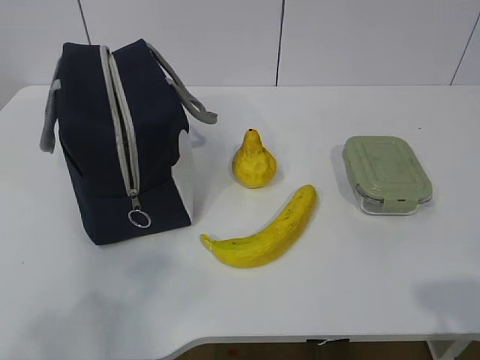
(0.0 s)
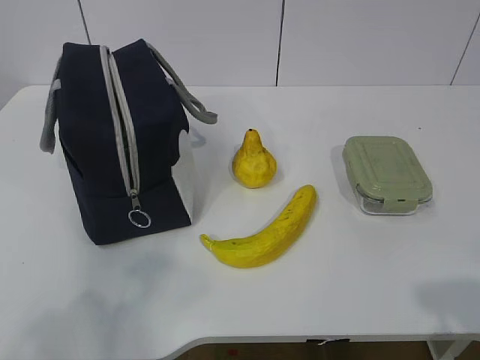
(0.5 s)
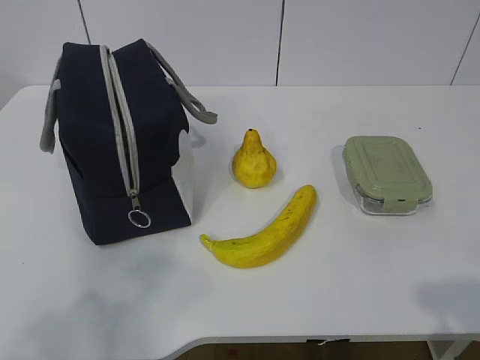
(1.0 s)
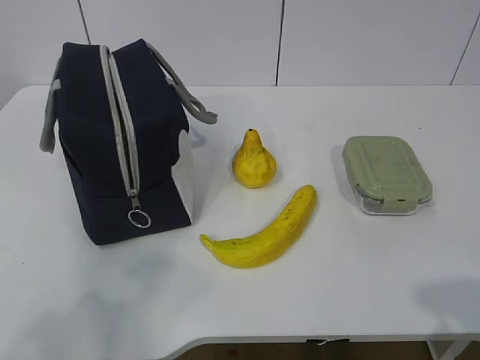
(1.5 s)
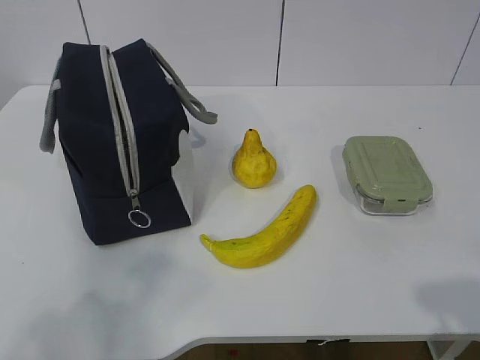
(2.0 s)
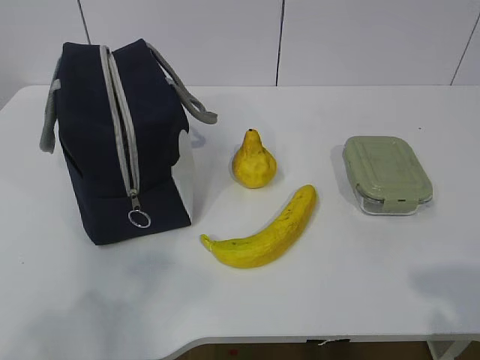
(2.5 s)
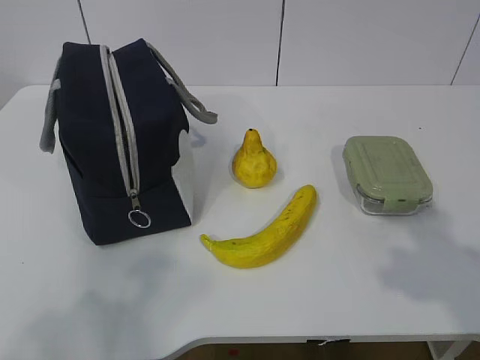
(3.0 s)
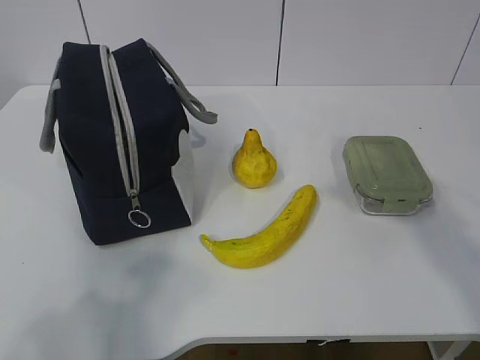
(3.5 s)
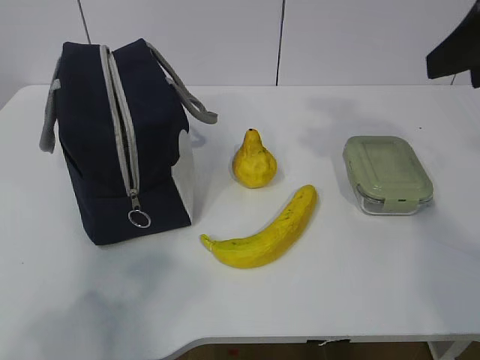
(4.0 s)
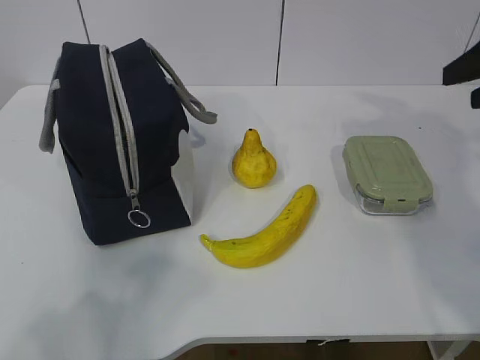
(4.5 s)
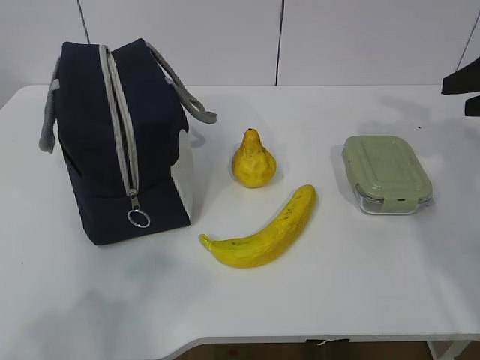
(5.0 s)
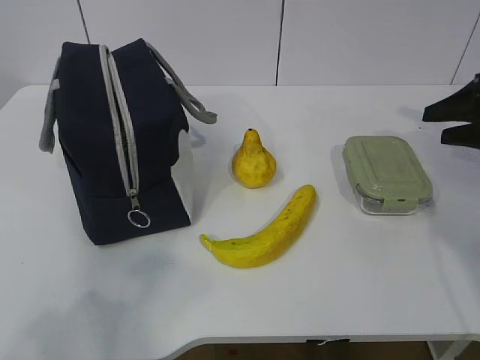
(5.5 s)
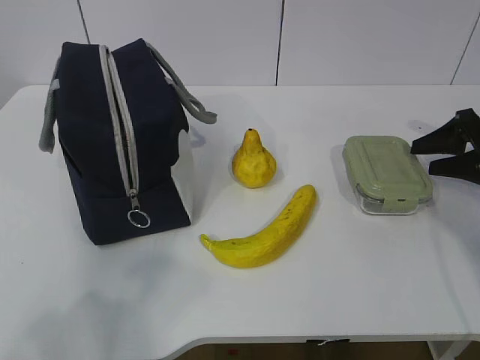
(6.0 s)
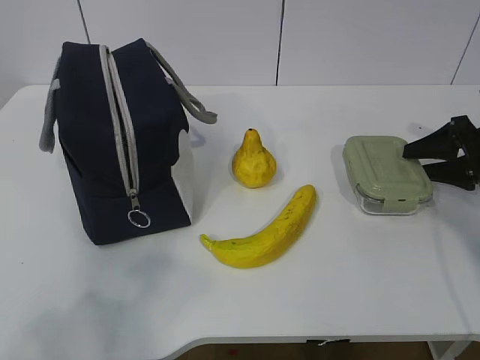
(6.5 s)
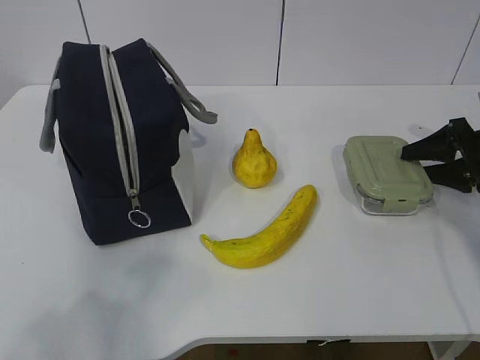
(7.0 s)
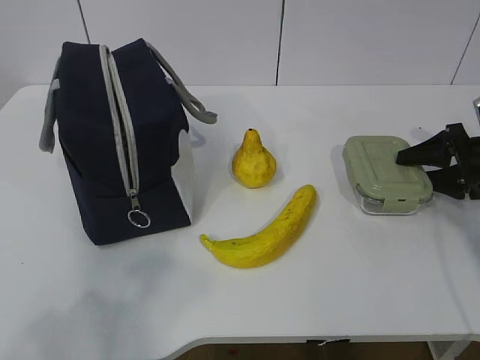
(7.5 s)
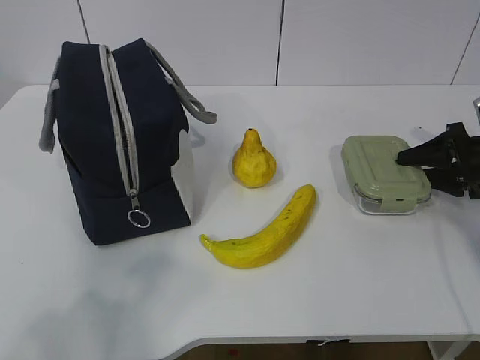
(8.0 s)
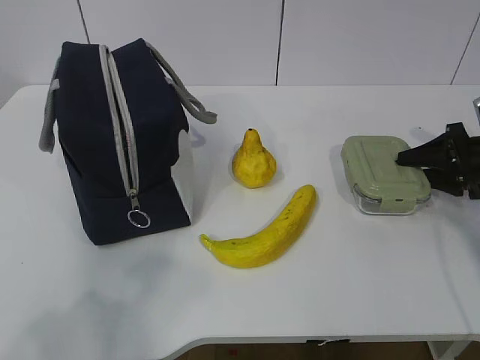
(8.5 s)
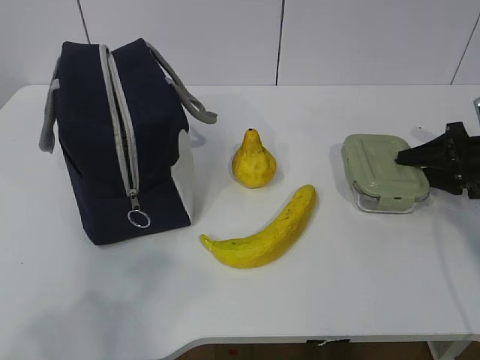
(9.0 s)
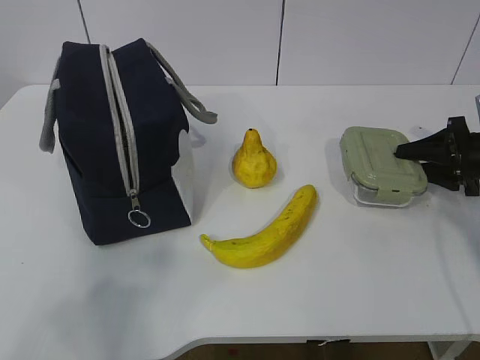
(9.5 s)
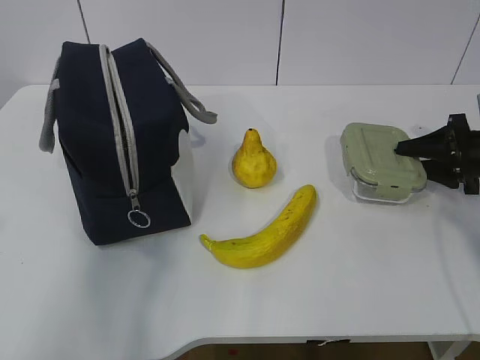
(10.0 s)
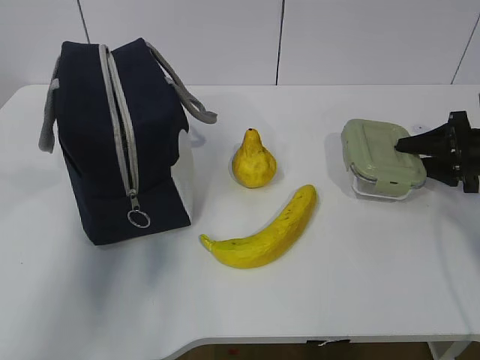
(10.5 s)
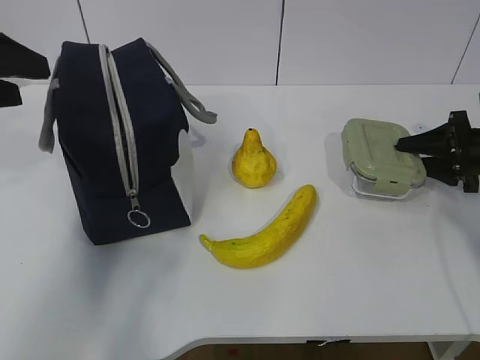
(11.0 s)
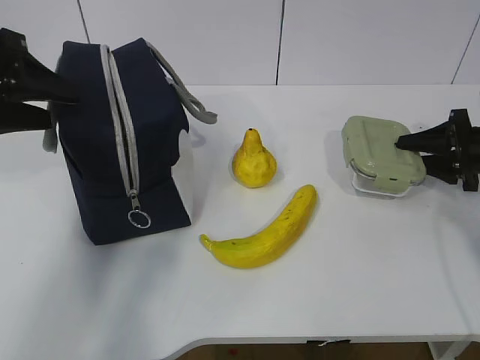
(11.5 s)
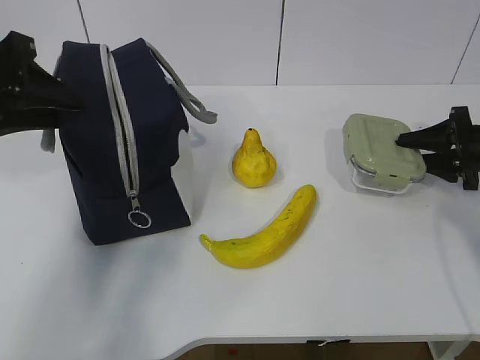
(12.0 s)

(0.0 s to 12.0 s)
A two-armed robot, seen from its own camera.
Step, 0.0 s - 8.0 s: Grasp the box with the right gripper.
2.0 s - 4.0 s: The right gripper moves forward, roughly 25 cm.
4.0 s - 6.0 s: The right gripper moves downward, to the right and forward, roughly 30 cm.
6.0 s - 8.0 s: The grippers make only small movements.
10.0 s - 12.0 s: The left gripper travels forward by about 25 cm.

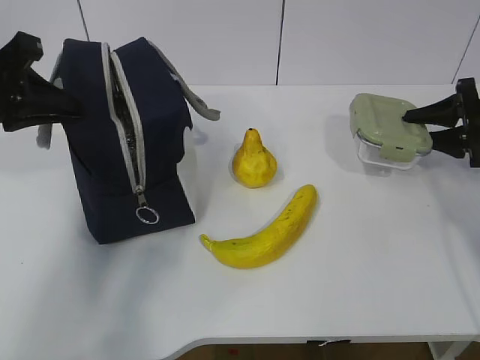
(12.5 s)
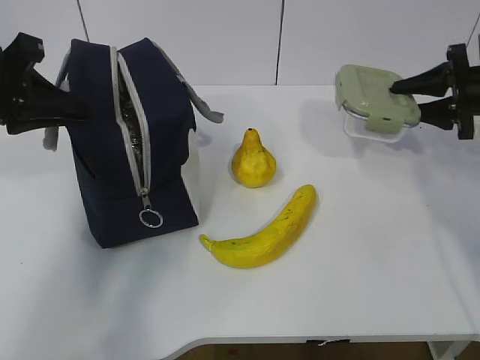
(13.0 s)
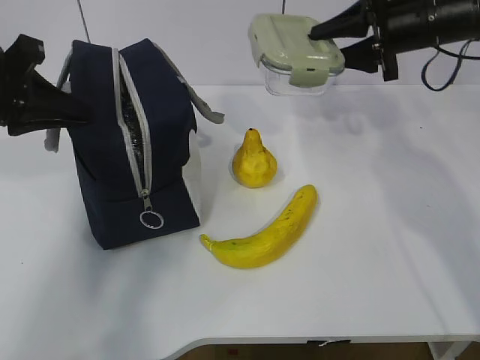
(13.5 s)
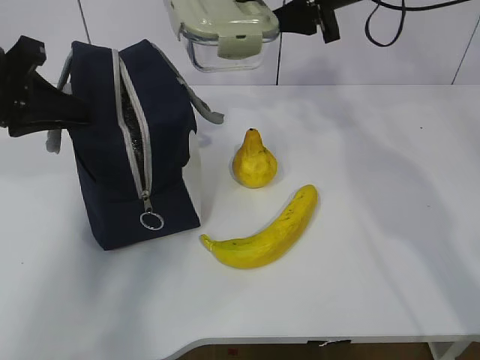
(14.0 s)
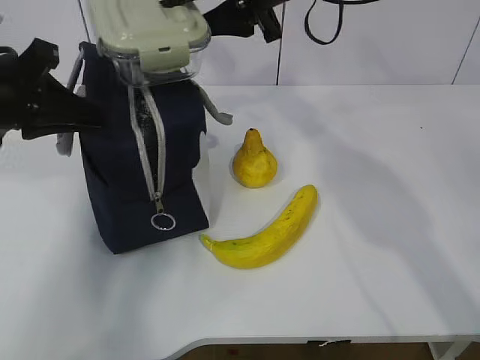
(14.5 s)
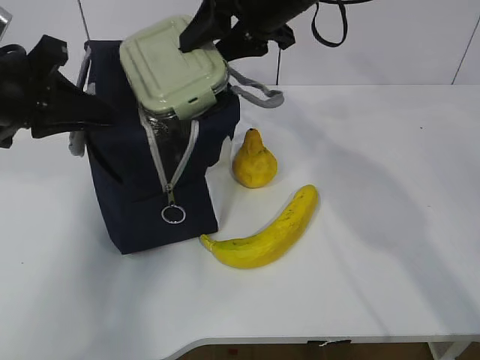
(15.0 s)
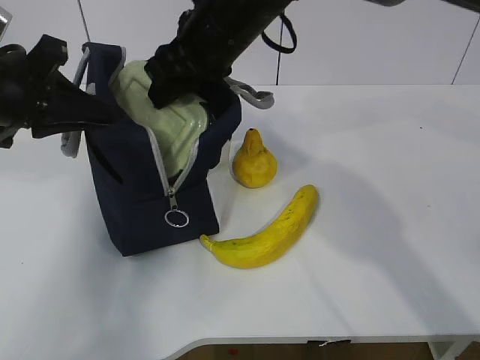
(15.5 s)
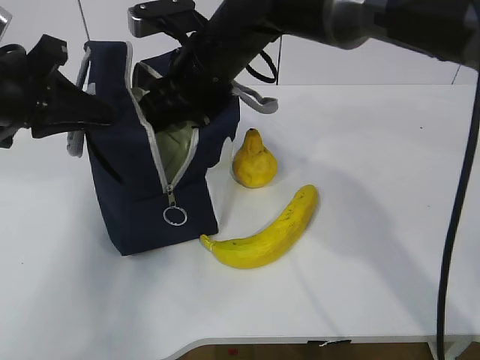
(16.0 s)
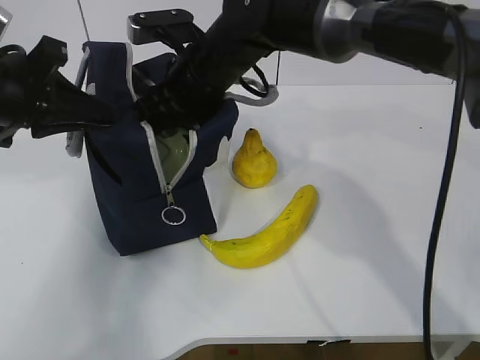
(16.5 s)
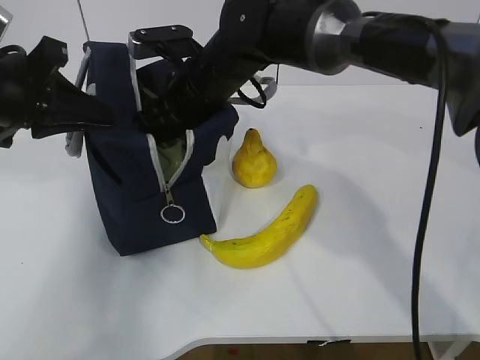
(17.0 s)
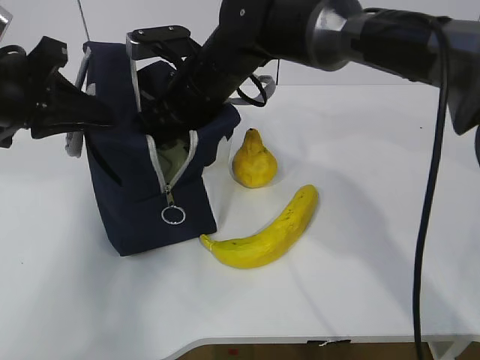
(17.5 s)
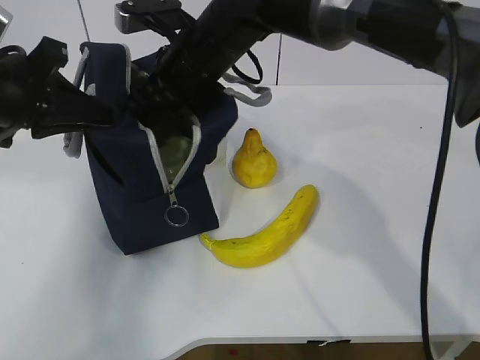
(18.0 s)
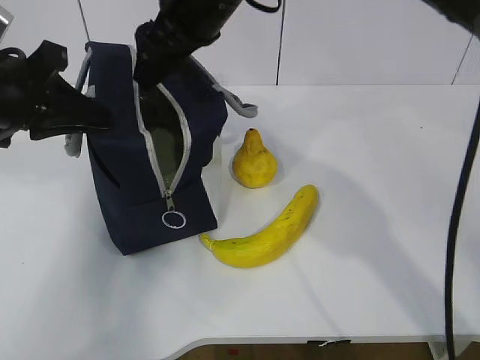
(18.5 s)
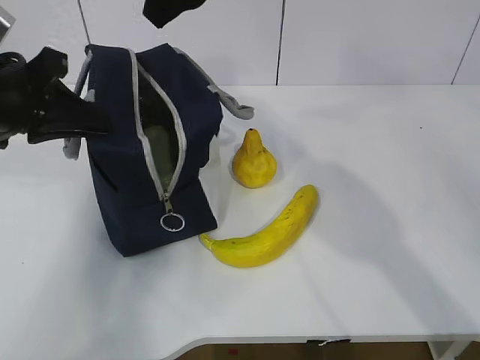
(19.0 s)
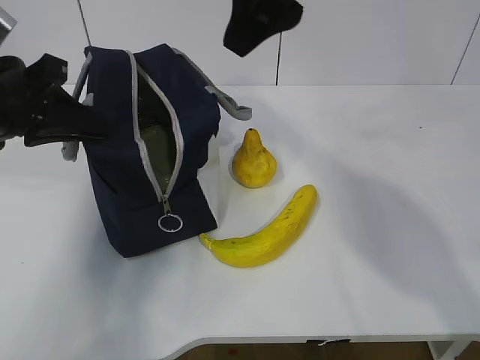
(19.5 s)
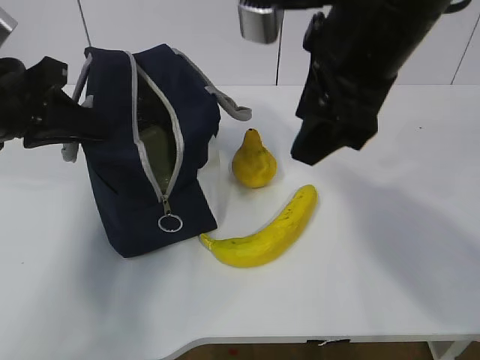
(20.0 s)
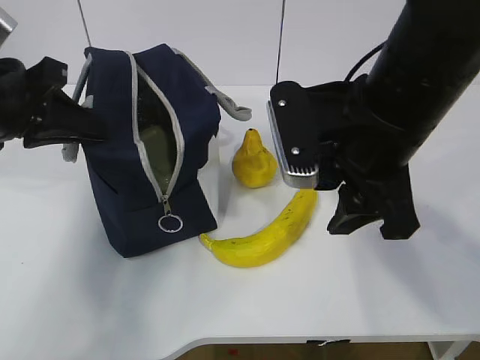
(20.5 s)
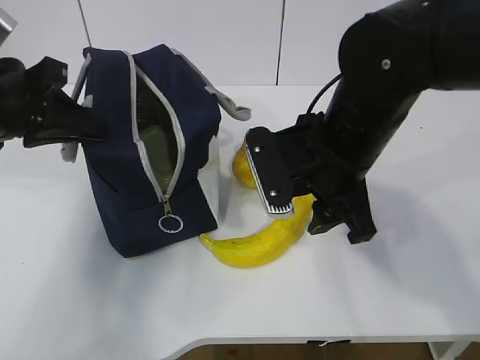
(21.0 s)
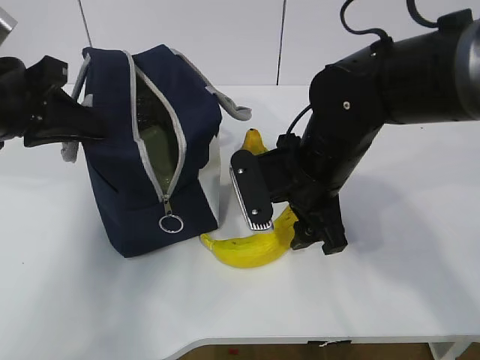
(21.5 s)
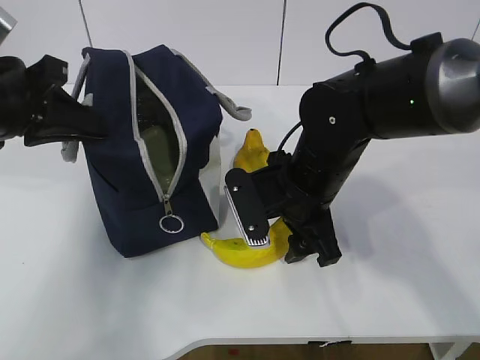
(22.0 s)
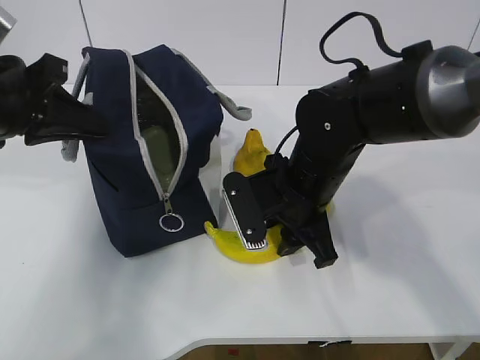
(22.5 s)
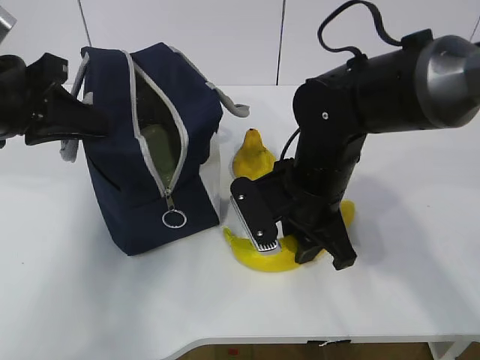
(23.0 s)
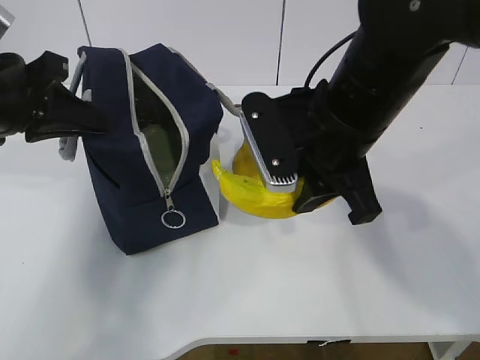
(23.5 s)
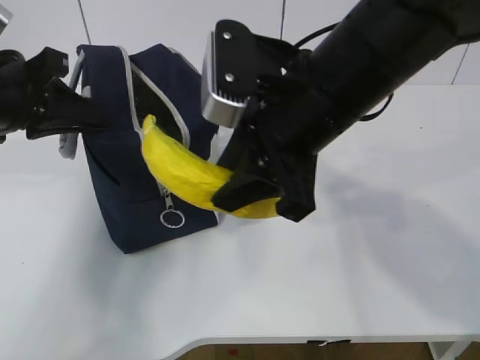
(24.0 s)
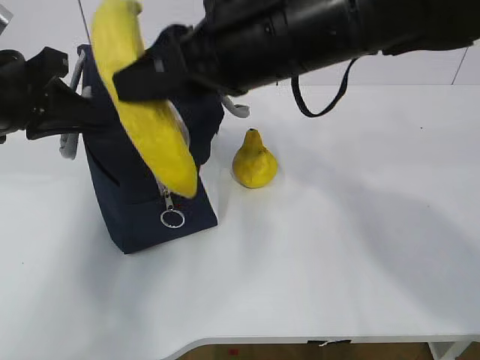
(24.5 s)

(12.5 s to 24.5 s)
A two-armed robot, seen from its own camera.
Step, 12.5 s - 18.5 s: Place the box into the package with the right gripper.
Step, 19.0 s - 22.5 s: Grasp the banana with the right gripper.
12.5 s - 14.5 s: The right gripper is displaced to the left and upward by some 35 cm.
14.5 s - 16.5 s: The right gripper goes some 15 cm downward and to the left.
16.5 s - 18.5 s: The right gripper moves upward, roughly 10 cm.
18.5 s - 20.5 s: The right gripper shifts about 20 cm backward and to the right.
20.5 s - 22.5 s: The right gripper heads downward and forward, covering roughly 15 cm.
22.5 s - 24.5 s: The right gripper is displaced upward by about 15 cm.

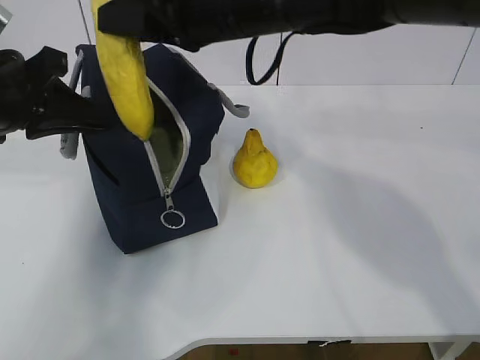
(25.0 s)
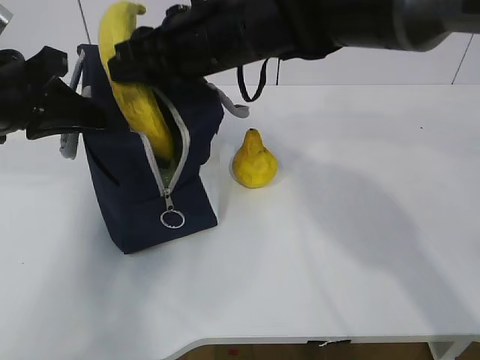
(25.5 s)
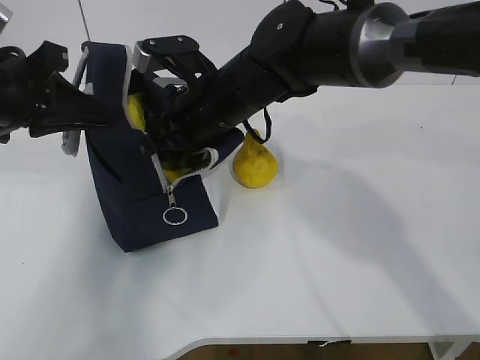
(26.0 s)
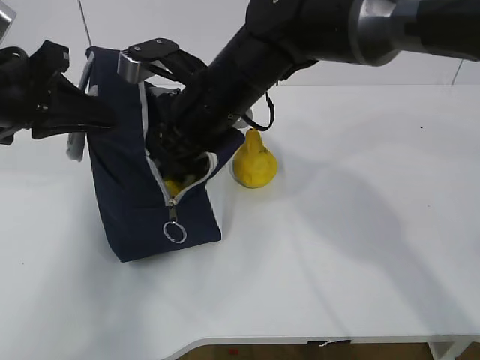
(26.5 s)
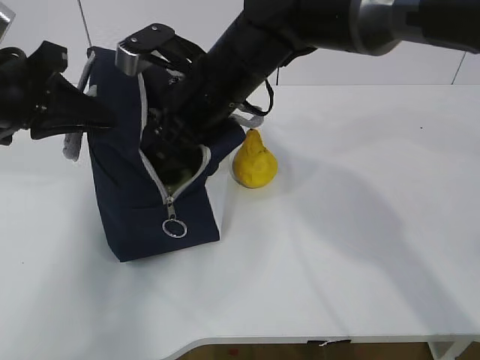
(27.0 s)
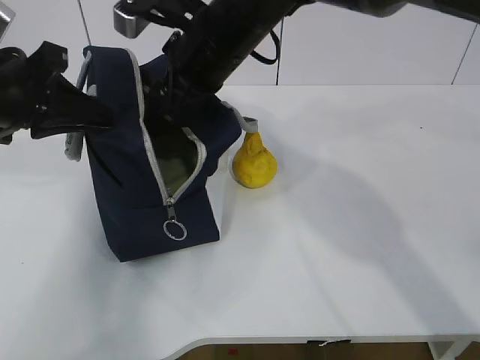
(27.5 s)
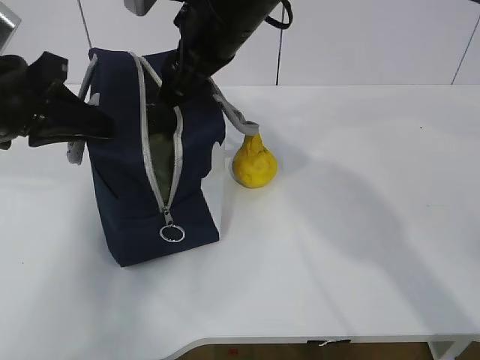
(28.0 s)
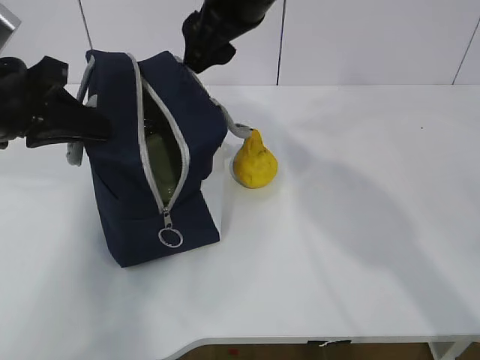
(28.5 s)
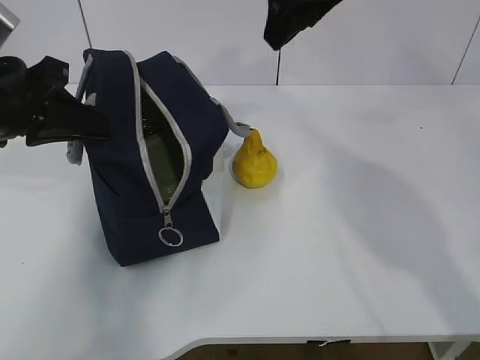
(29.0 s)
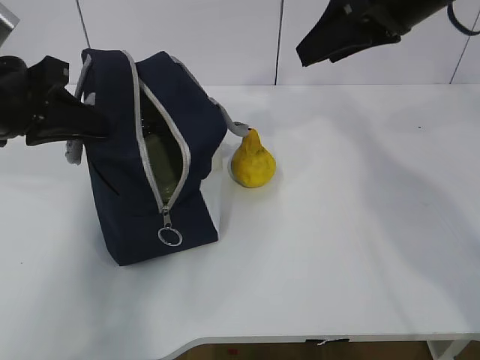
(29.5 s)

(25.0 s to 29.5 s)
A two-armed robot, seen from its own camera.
Step, 25.0 s - 28.0 s: Place the banana into the package with the right gripper.
25.0 s - 27.0 s: The right gripper shifts about 10 cm downward, and opens its fingers.
27.0 s - 29.5 s: The right gripper is displaced to the right and upward by roughly 20 cm.
